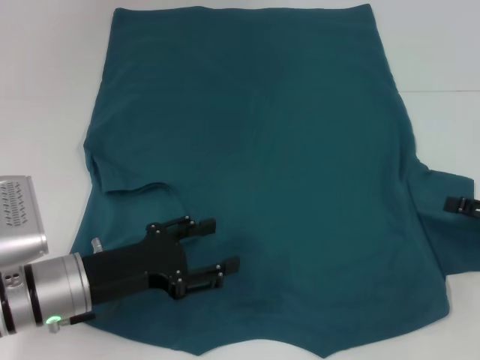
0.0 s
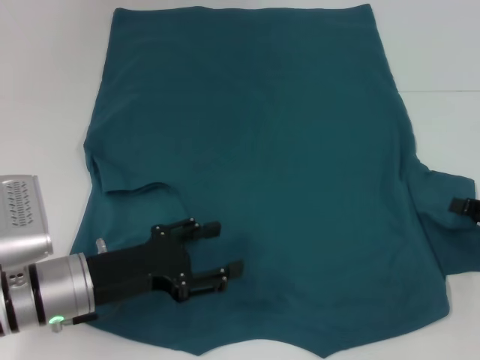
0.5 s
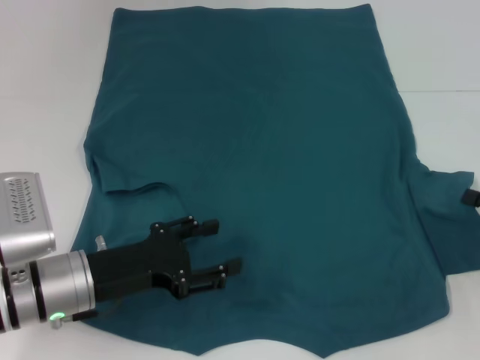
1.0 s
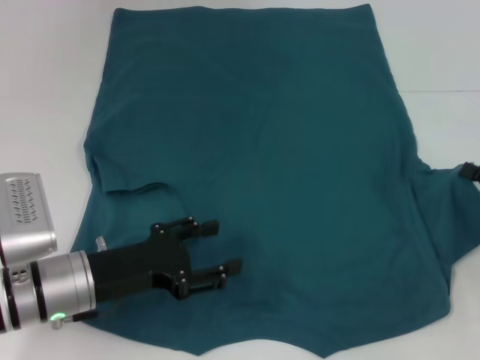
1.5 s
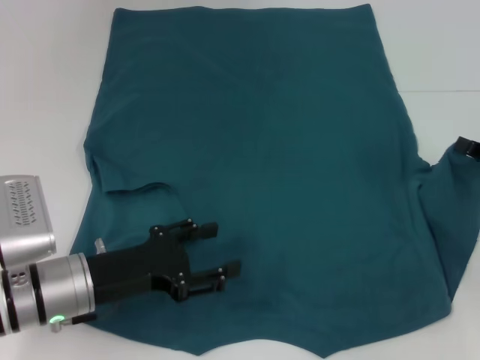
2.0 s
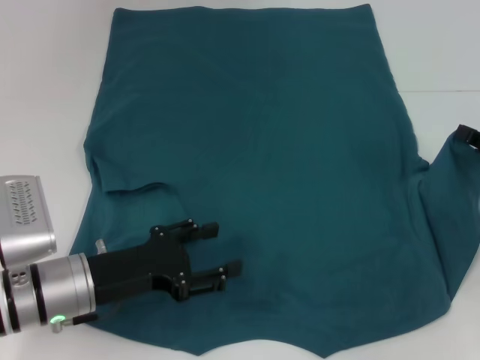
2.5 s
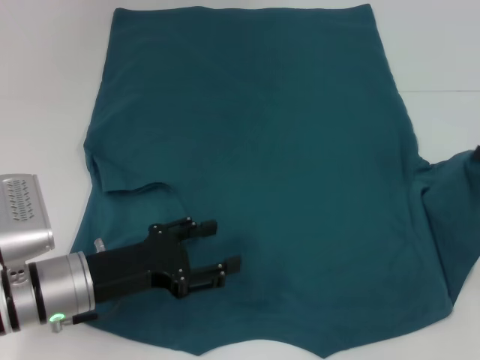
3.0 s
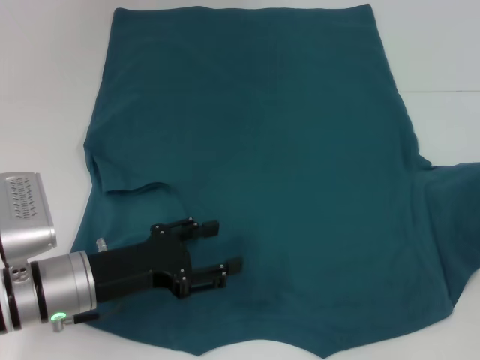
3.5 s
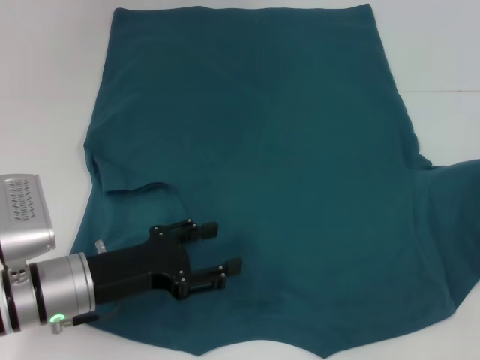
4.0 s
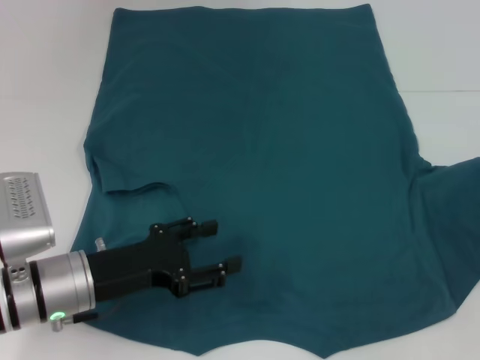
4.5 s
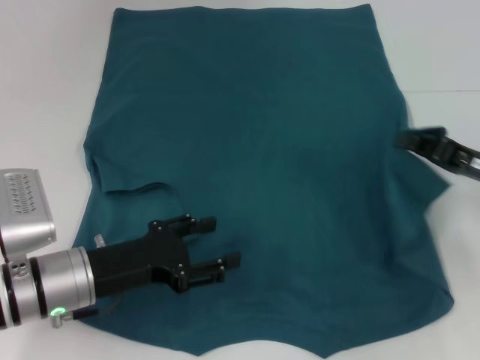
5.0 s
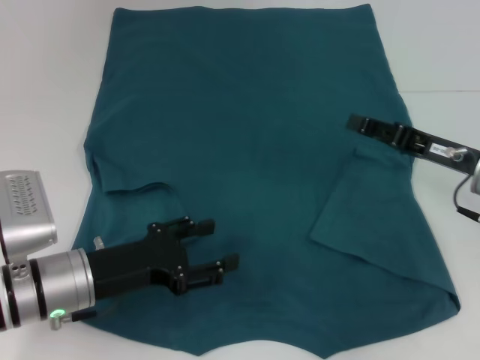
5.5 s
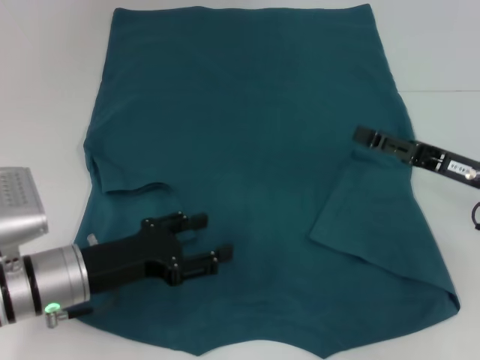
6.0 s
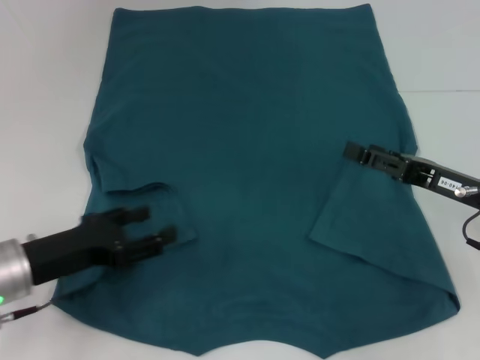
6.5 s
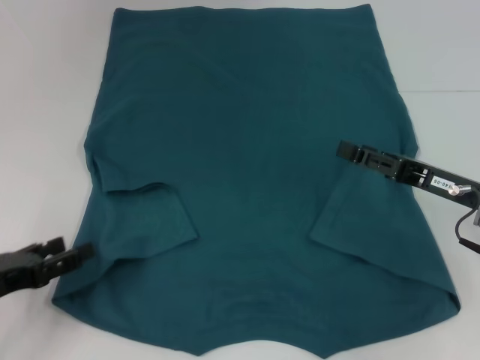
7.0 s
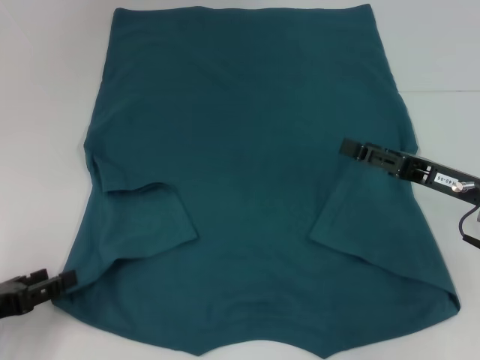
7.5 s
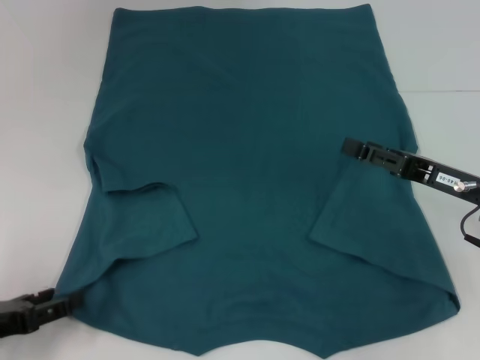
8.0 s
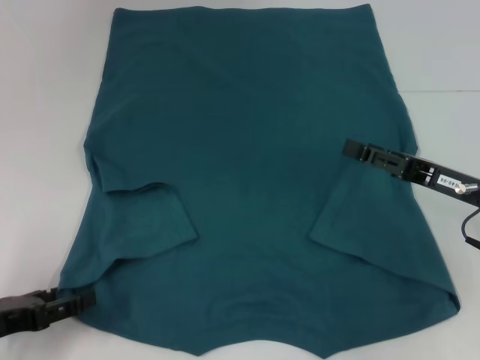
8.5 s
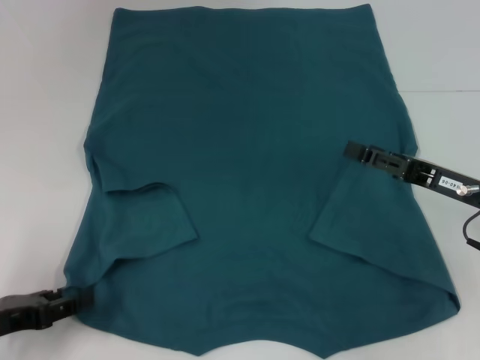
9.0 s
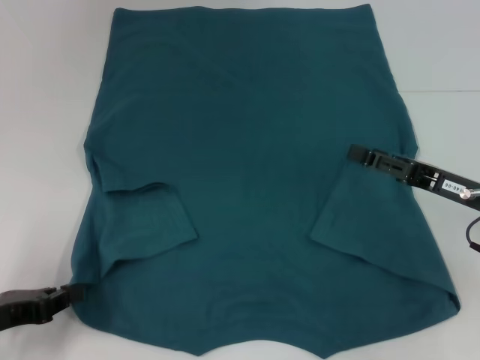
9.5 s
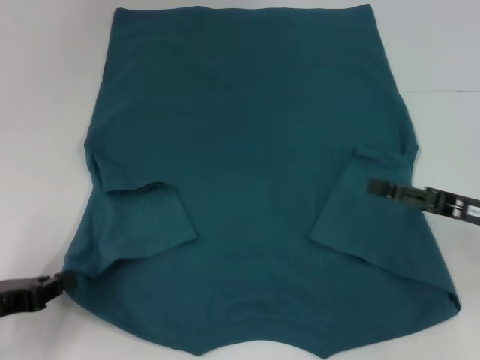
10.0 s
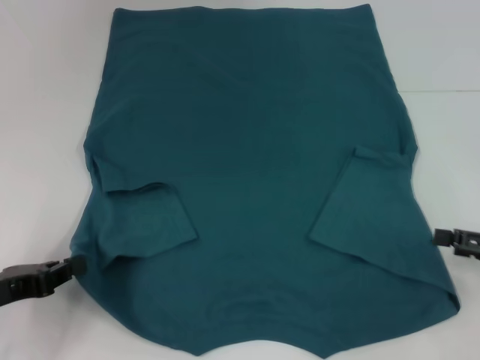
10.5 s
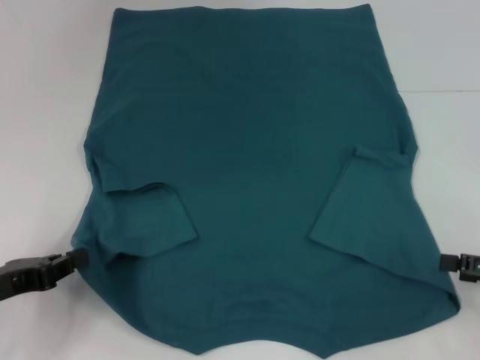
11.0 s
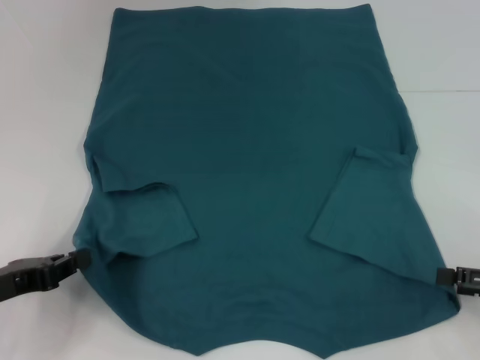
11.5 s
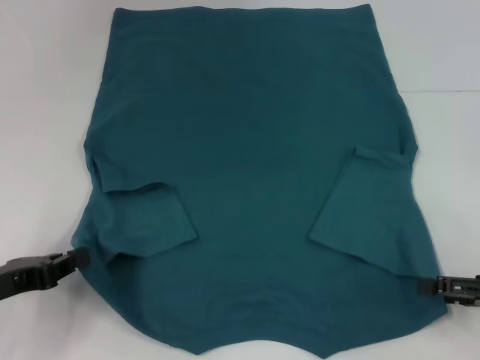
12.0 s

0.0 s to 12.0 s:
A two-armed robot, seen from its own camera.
Step, 0.0 to 6.5 s: Fold the bottom right sleeve to the right.
Step, 7.0 to 10.0 s: Grab the bottom left corner with your left hand.
0.0 to 2.0 s: The right gripper closes its fingers.
2.0 to 4.0 s: There are only small adjustments of the grippers.
4.0 to 6.0 s: The right gripper goes approximately 10 cm to the left, and opens its fingers.
6.0 to 8.0 s: The left gripper travels to the left and backward by some 15 cm.
8.0 to 10.0 s: The left gripper closes its fingers.
10.0 to 12.0 s: The right gripper is displaced backward by some 5 cm.

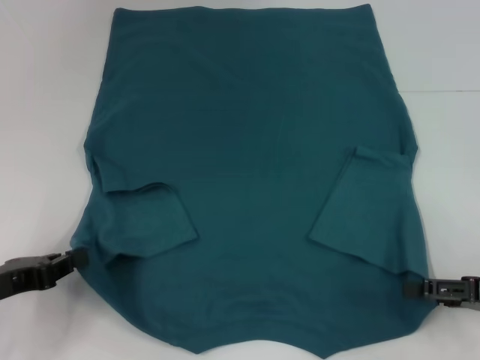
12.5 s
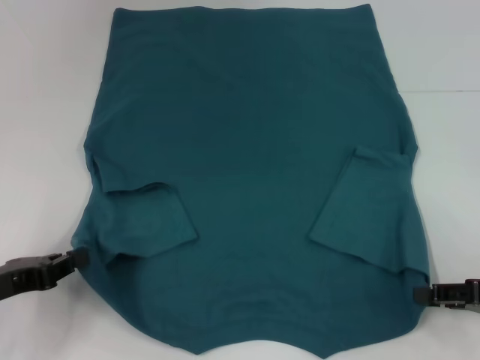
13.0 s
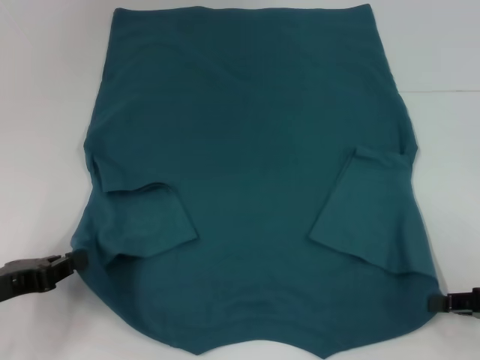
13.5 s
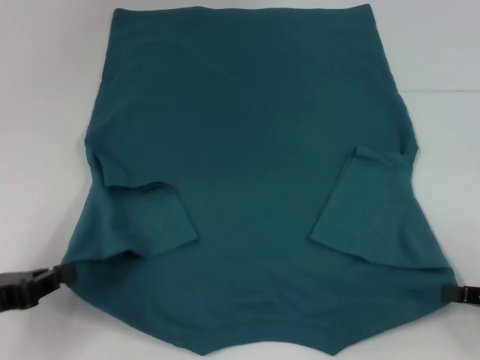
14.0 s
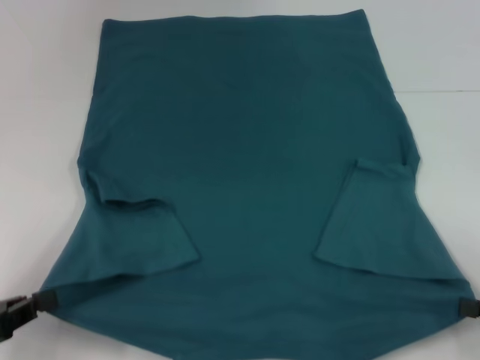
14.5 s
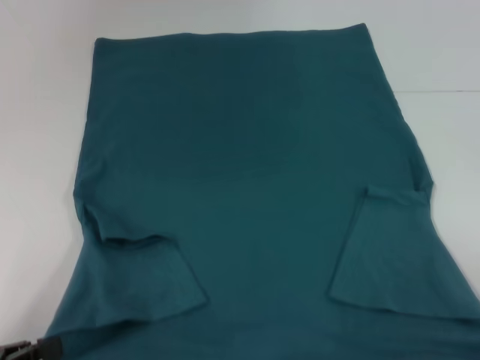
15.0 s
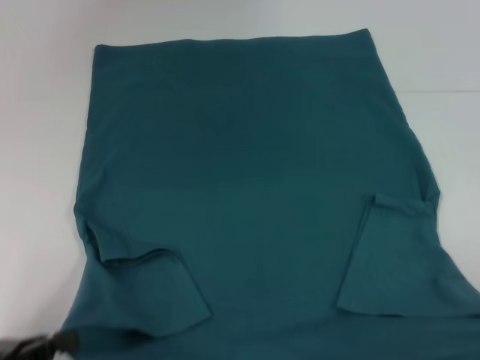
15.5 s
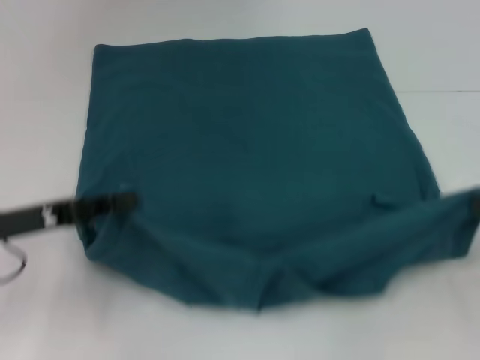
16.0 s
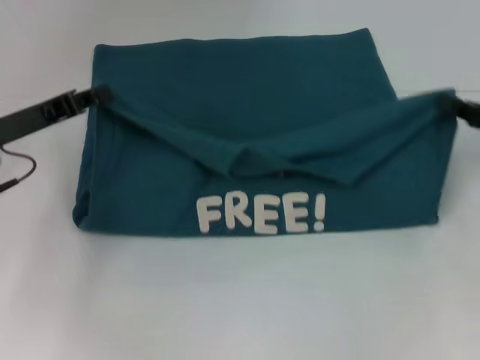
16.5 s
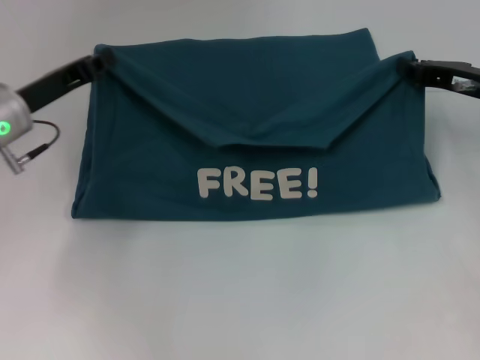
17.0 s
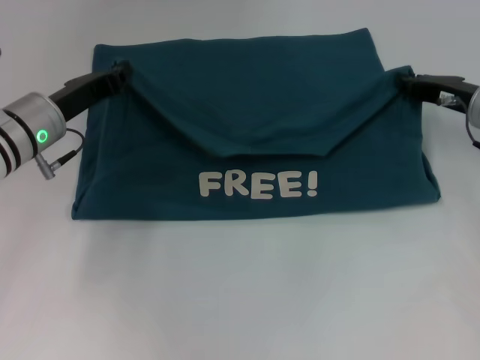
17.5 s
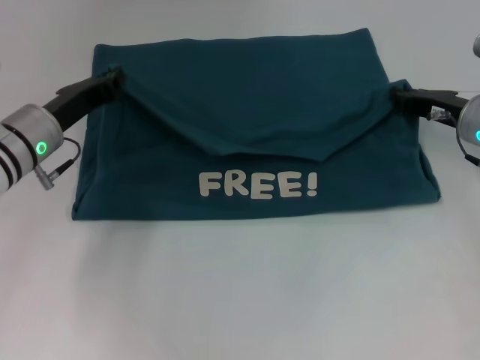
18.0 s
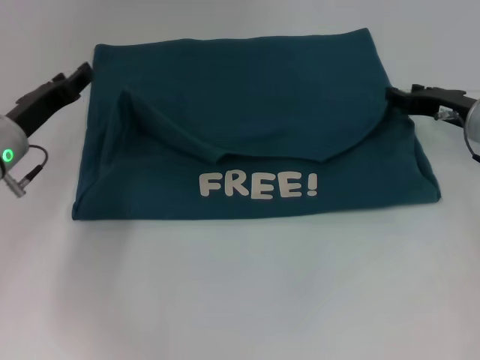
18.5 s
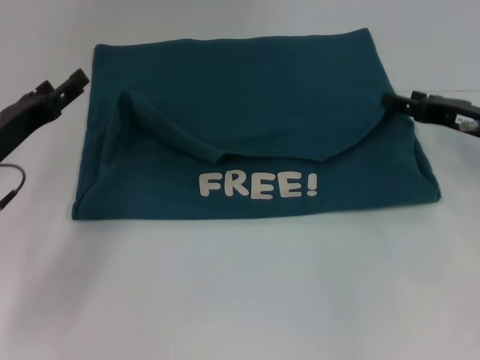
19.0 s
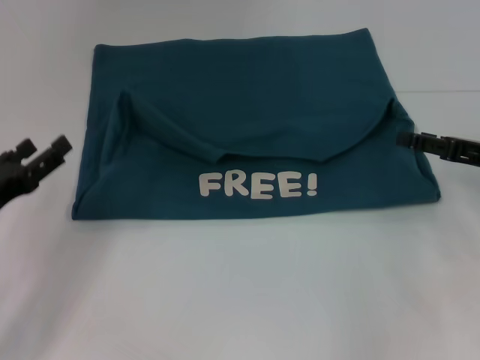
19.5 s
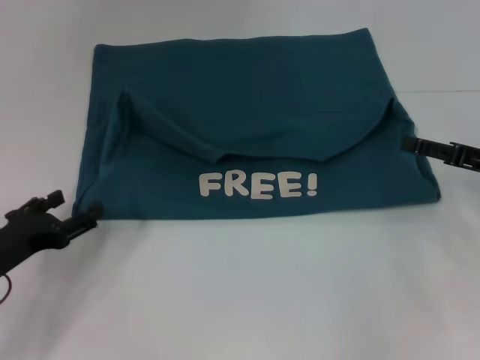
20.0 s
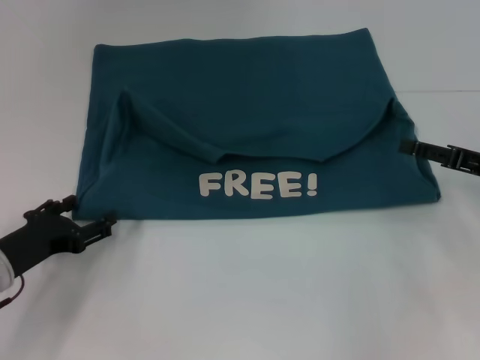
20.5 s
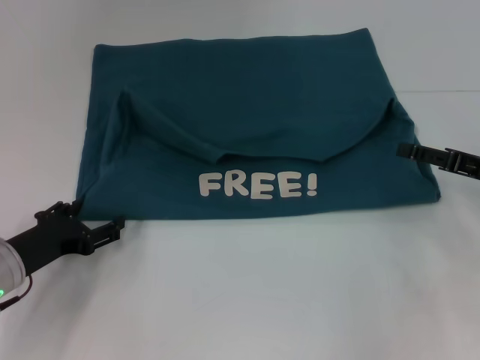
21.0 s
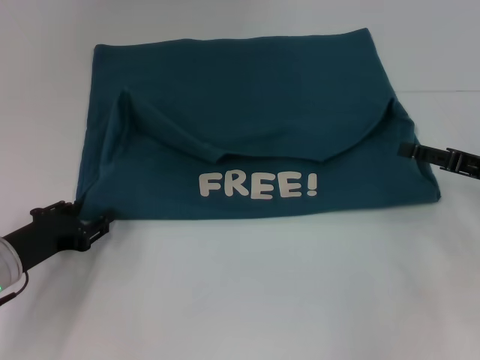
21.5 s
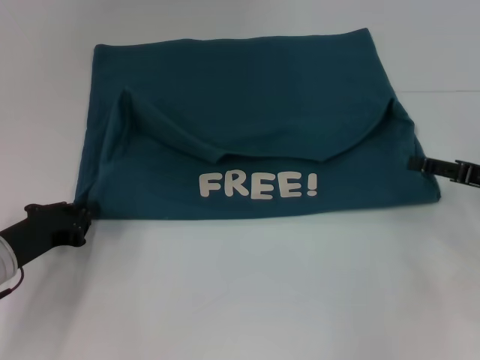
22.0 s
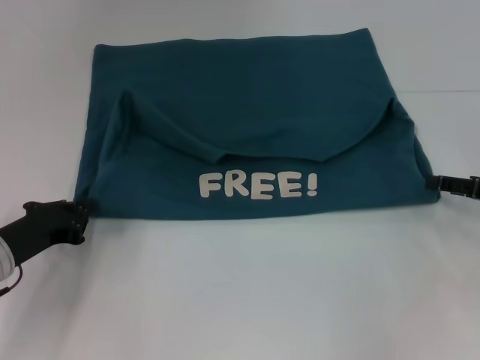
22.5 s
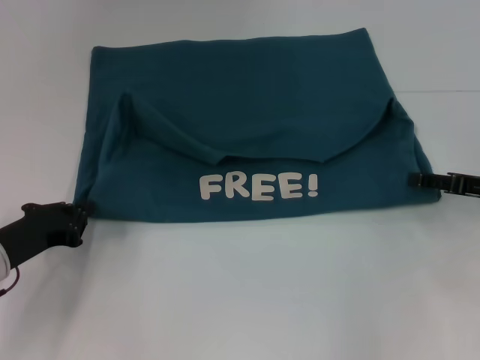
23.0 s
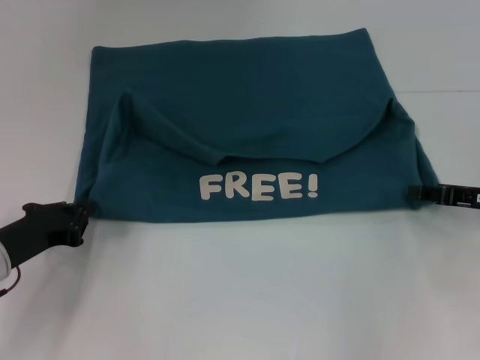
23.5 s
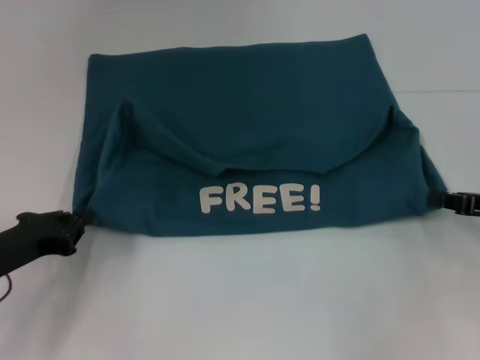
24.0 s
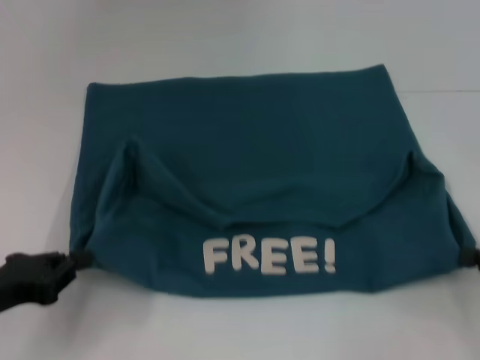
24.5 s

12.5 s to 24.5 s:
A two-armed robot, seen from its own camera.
Step, 14.0 to 19.0 s: Fold the clothes to the left.
Step, 14.0 to 19.0 s: Fold the clothes to the right.
12.5 to 14.5 s: Both grippers move backward, some 5 cm. The right gripper closes its fingers.
14.5 to 16.5 s: The right gripper shifts about 15 cm forward and upward, while the left gripper goes roughly 20 cm forward.
16.5 to 18.5 s: The left gripper changes place by about 5 cm, and opens up. Meanwhile the right gripper is displaced to the left and forward by about 10 cm.
18.5 to 20.5 s: The right gripper heads backward and to the right, covering roughly 10 cm, and opens up. The left gripper goes approximately 10 cm backward and downward, and opens.
20.5 to 22.5 s: The left gripper closes up.
22.5 to 24.5 s: Both grippers move backward, about 10 cm. The right gripper closes up.

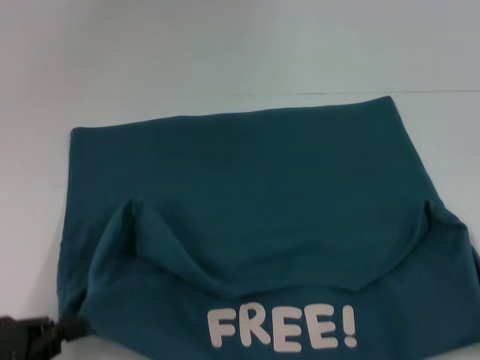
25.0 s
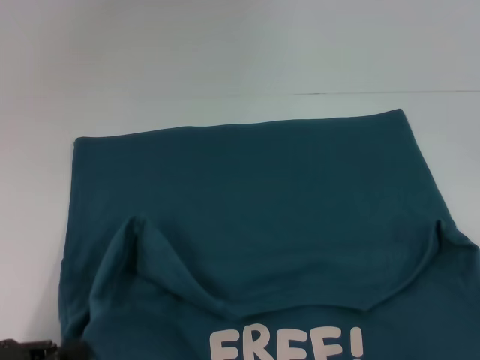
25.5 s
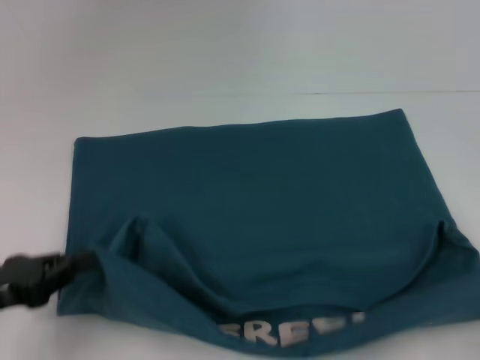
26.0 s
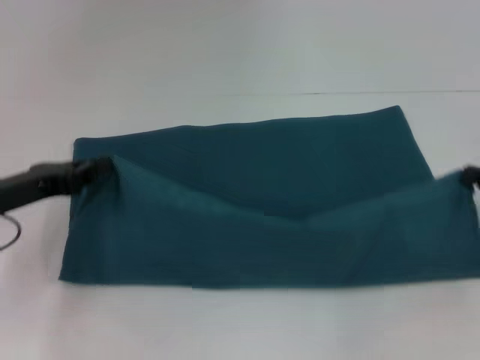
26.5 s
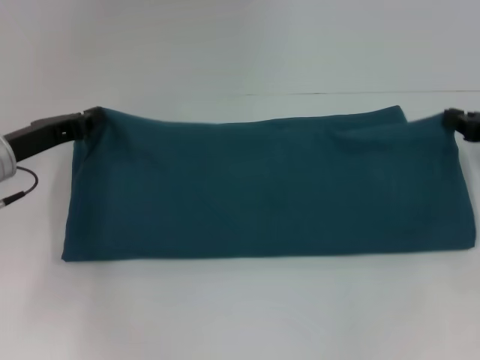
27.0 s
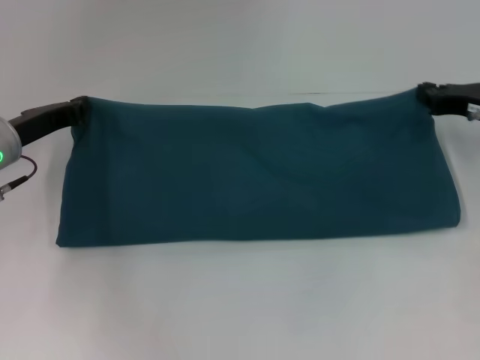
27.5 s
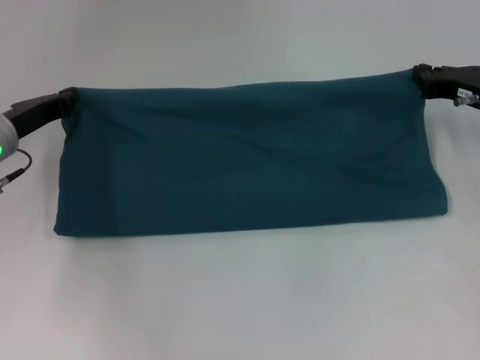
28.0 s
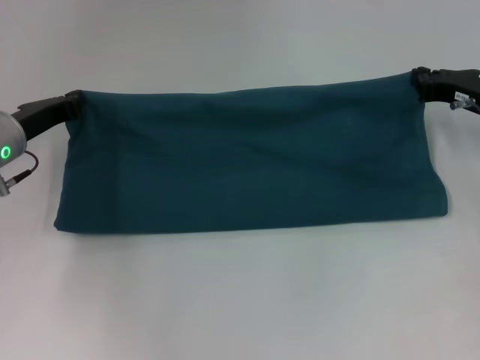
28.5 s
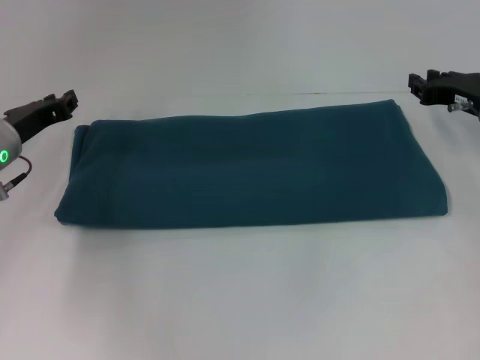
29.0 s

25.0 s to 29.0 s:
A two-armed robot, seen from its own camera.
25.0 to 27.0 s: Both grippers travel together forward, roughly 20 cm.
27.0 to 29.0 s: The right gripper is displaced to the left and forward by about 10 cm.
